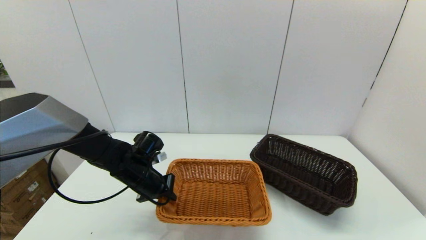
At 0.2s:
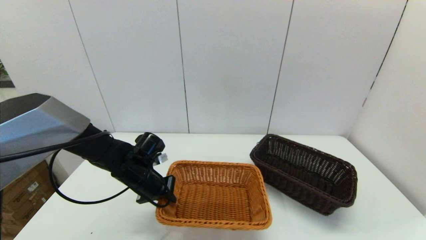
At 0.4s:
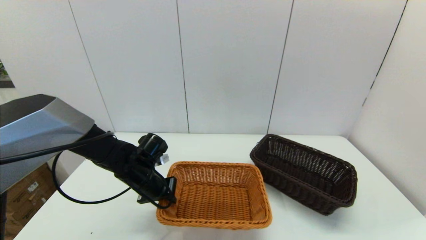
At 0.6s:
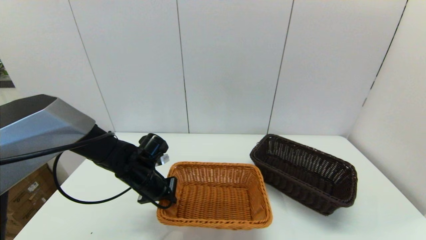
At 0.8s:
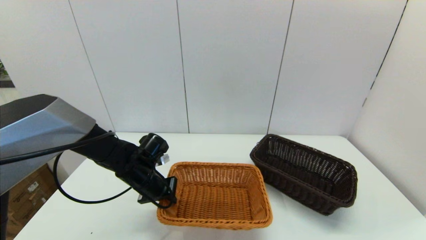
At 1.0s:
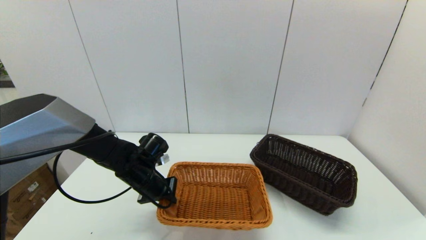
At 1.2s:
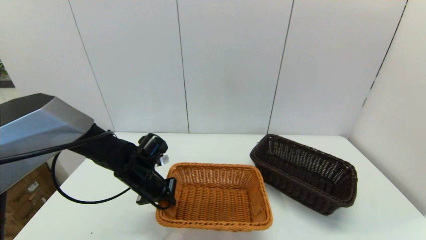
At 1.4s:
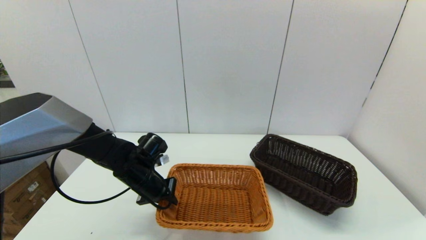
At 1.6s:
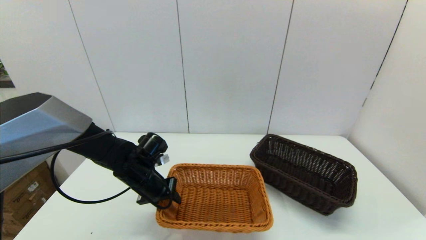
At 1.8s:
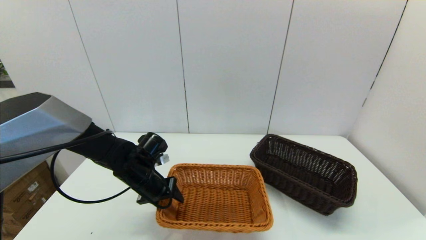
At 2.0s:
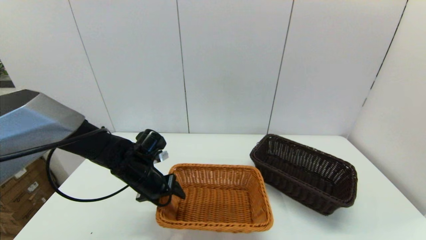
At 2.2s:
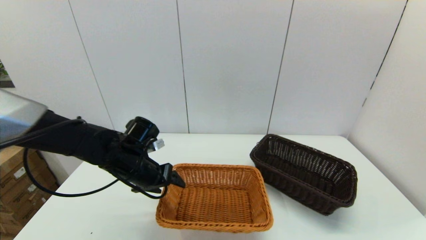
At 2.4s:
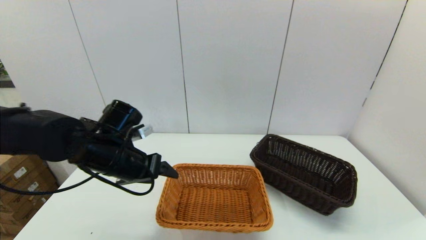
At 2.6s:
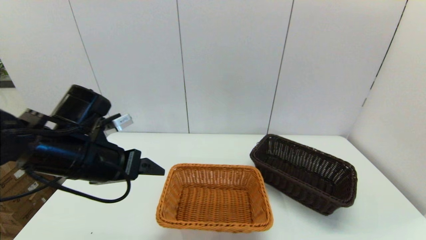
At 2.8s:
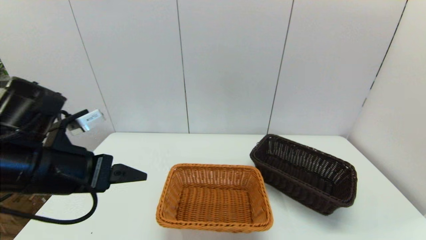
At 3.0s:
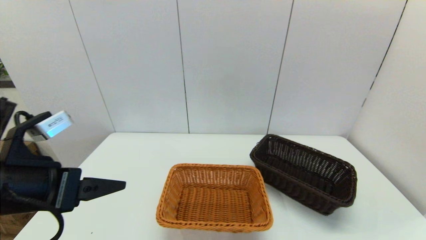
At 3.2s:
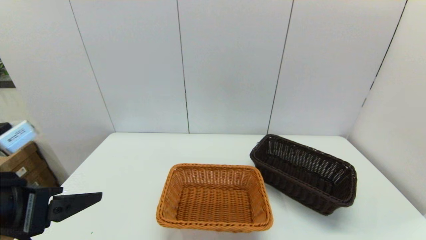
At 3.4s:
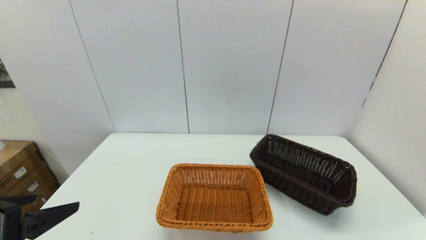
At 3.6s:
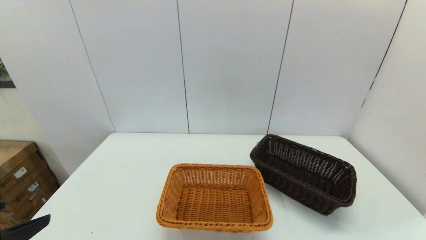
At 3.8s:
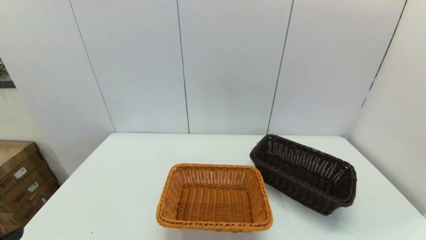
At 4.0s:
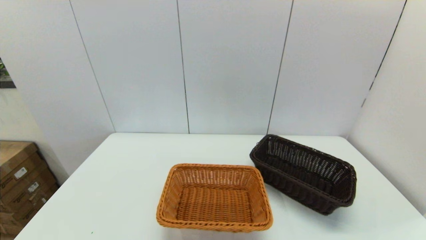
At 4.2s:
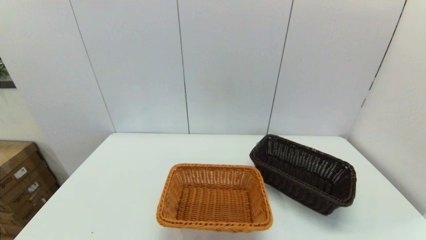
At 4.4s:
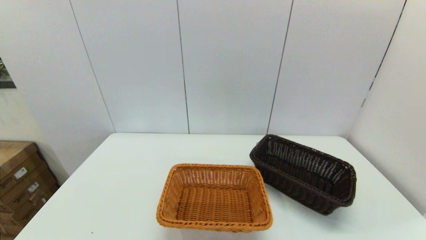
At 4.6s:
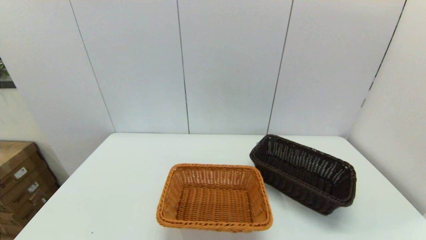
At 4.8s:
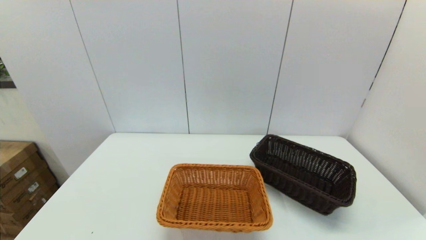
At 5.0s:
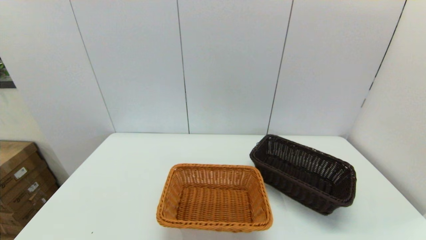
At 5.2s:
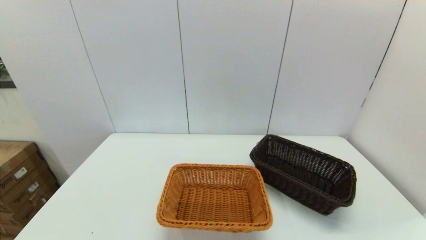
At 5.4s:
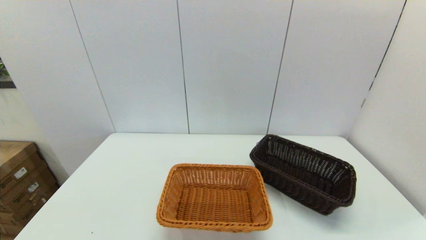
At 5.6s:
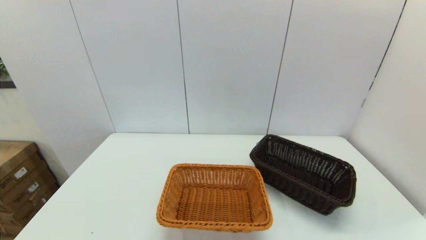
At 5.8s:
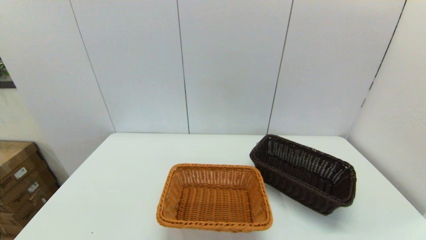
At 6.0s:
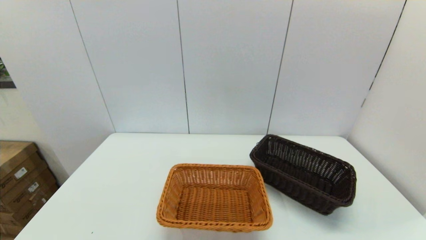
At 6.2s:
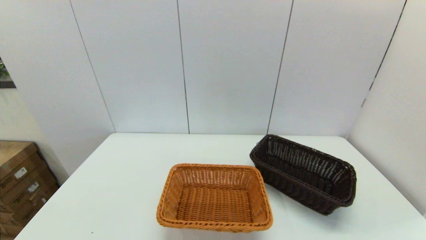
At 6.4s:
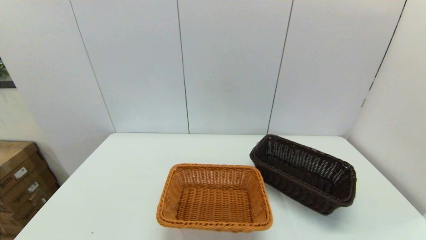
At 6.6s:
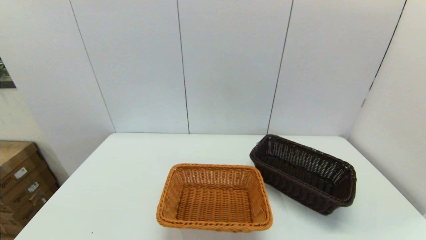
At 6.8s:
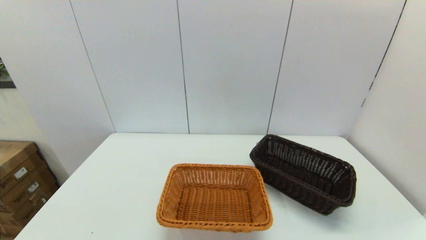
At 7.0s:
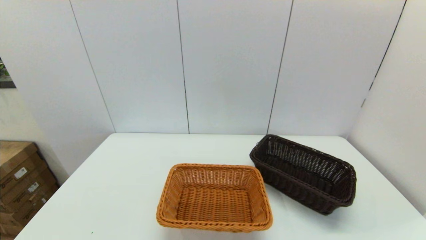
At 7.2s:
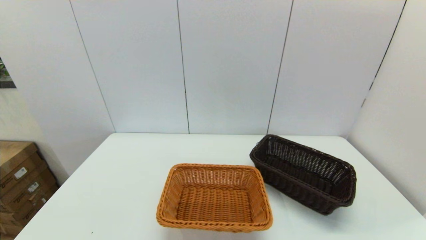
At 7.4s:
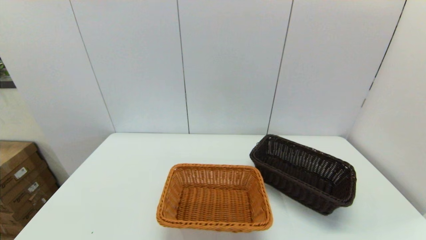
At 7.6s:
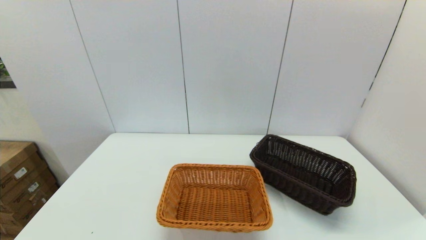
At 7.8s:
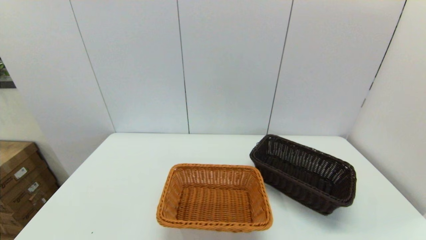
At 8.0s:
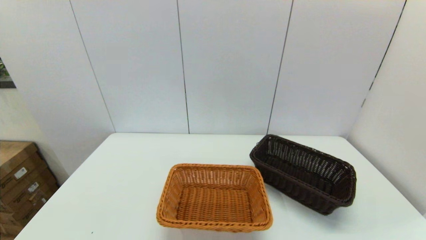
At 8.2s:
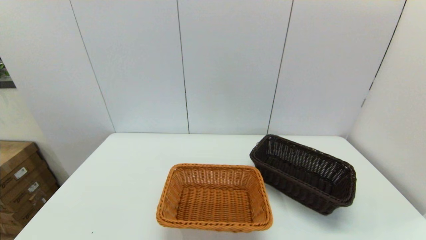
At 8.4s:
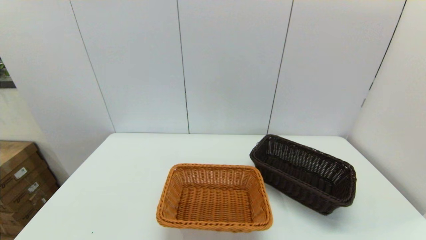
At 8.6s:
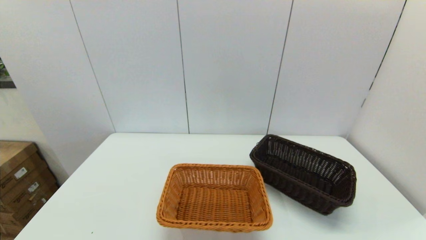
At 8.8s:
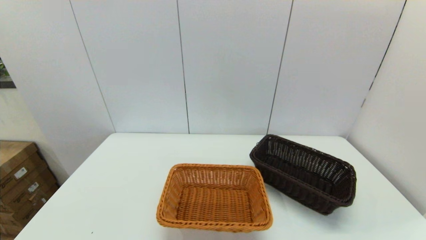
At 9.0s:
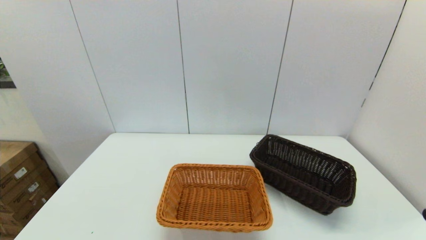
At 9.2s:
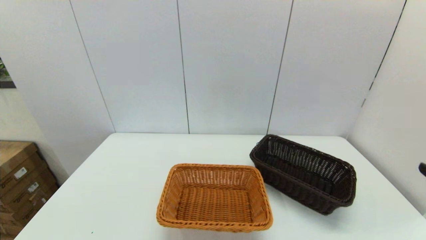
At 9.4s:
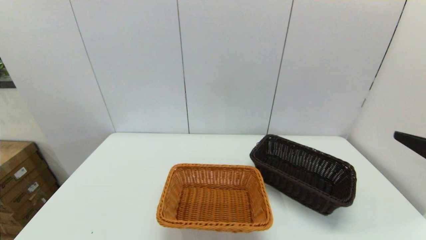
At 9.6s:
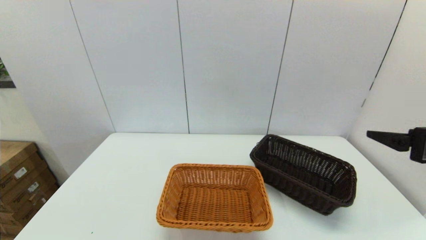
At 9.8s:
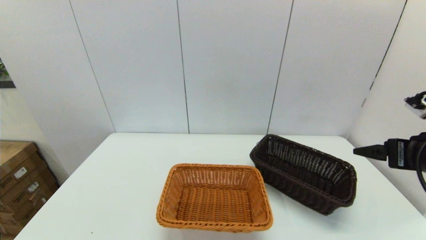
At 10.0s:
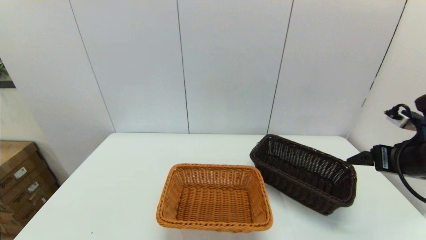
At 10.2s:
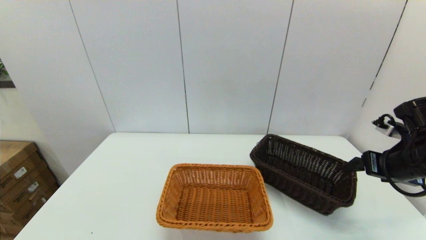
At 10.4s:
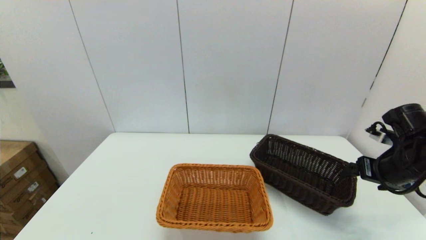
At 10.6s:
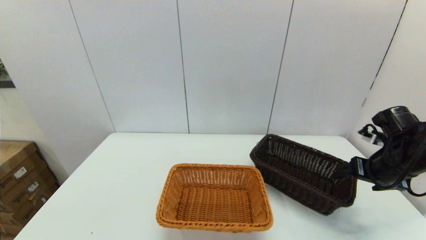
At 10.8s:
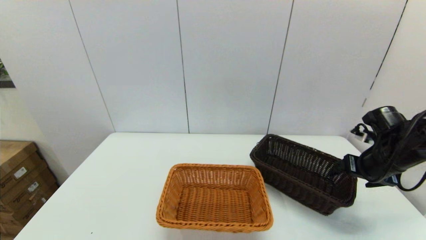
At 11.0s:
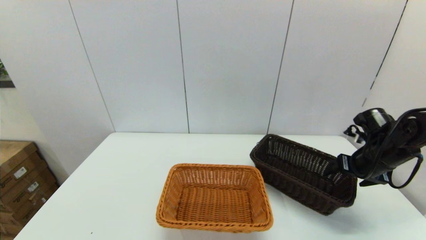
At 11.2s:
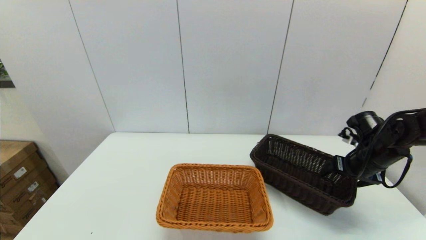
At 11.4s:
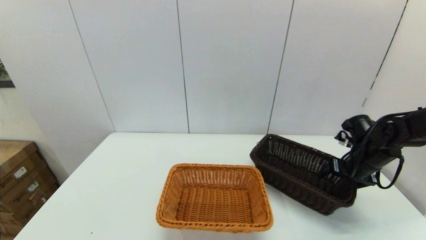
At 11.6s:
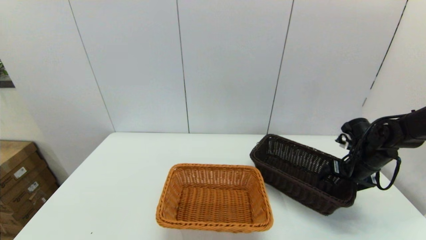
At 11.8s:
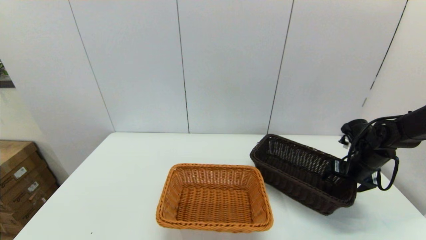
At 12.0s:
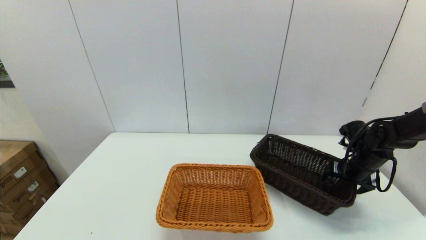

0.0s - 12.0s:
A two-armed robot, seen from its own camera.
Task of the whole recording: stack a basket on top of another basket.
Step, 0.0s - 2.6s: Place the light basket on the middle of the table with the left gripper.
0.0s - 1.6s: The left gripper opens.
1.6s - 3.0s: The left gripper travels upward, backward and to the left by about 25 cm, and opens up.
3.0s - 4.4s: The left gripper is displaced backward by some 20 cm.
6.0s - 7.6s: Both grippers stay put.
9.0s - 10.4s: The right gripper is displaced forward by about 25 cm.
10.4s - 12.0s: The right gripper moves forward and downward, about 15 cm.

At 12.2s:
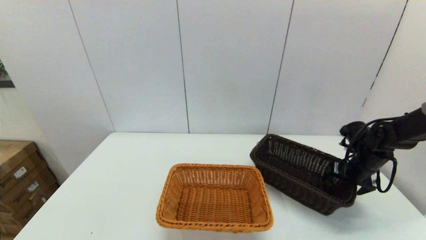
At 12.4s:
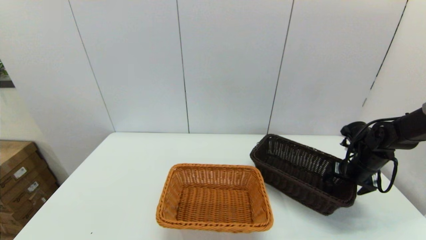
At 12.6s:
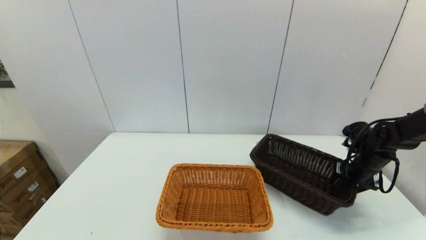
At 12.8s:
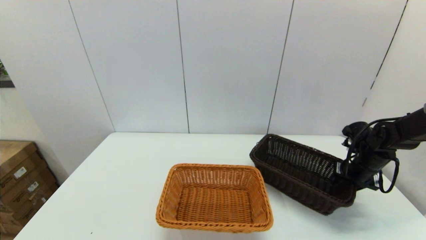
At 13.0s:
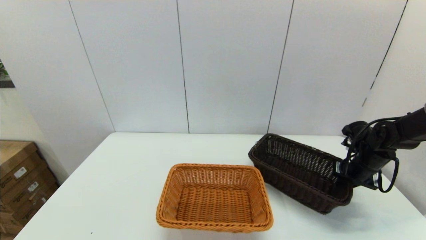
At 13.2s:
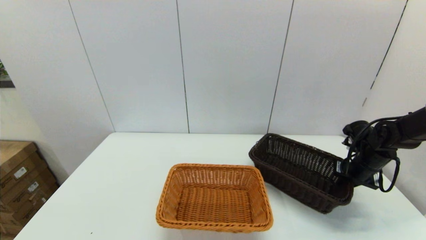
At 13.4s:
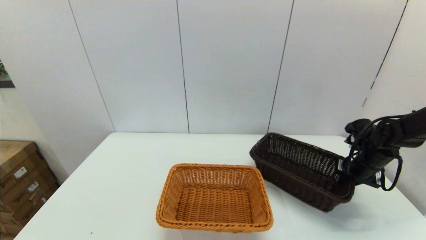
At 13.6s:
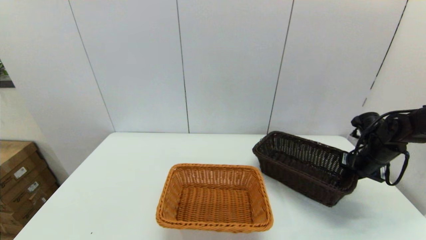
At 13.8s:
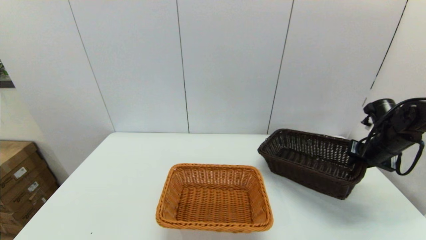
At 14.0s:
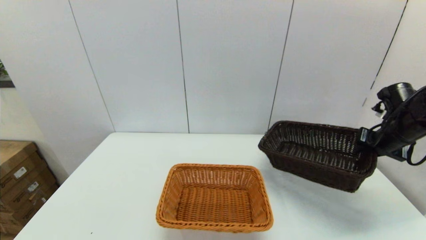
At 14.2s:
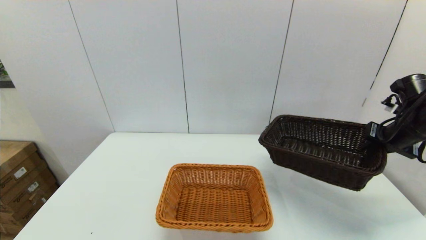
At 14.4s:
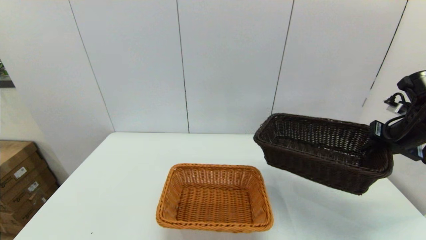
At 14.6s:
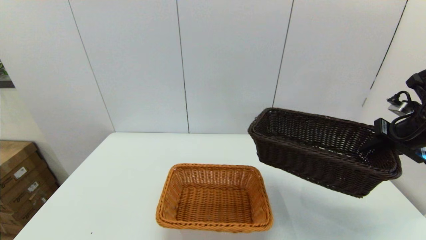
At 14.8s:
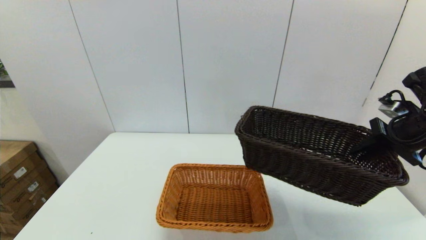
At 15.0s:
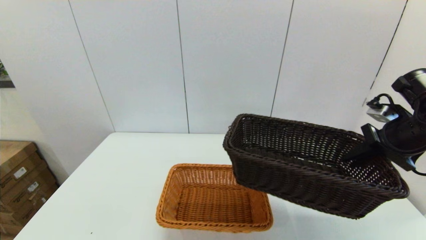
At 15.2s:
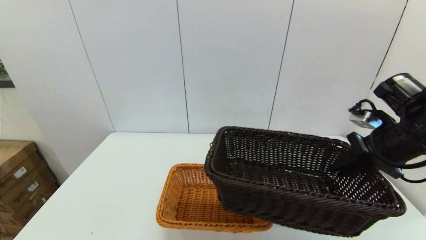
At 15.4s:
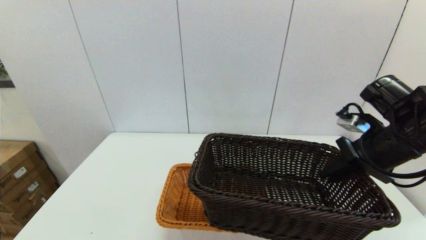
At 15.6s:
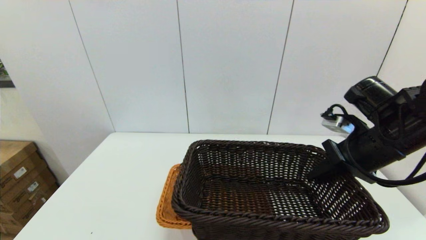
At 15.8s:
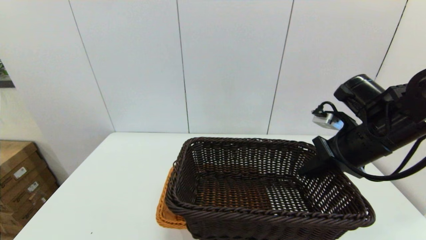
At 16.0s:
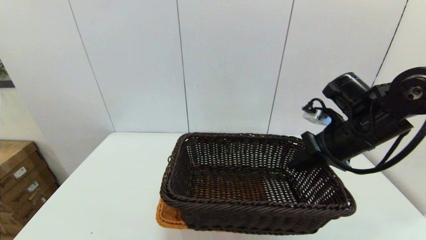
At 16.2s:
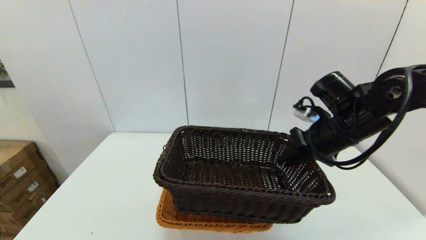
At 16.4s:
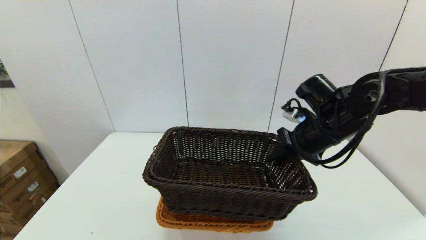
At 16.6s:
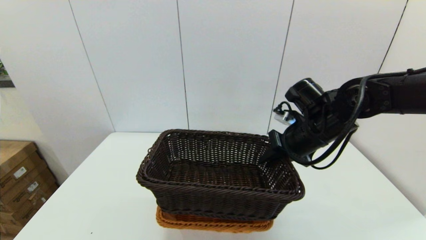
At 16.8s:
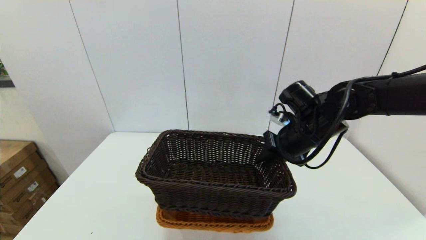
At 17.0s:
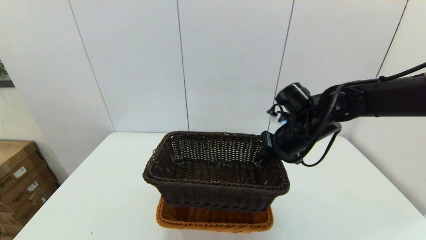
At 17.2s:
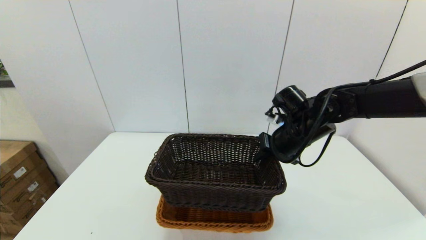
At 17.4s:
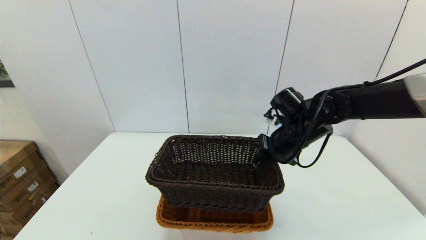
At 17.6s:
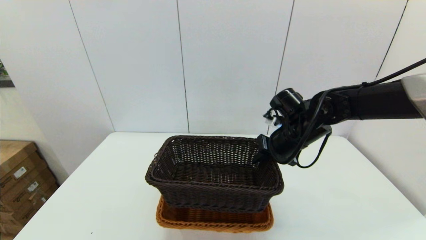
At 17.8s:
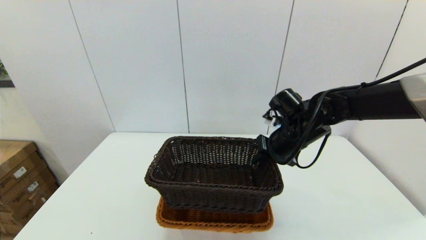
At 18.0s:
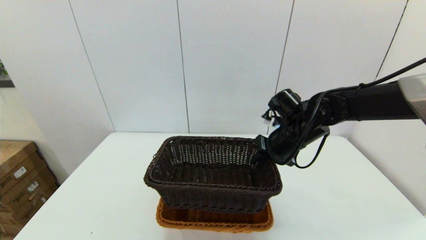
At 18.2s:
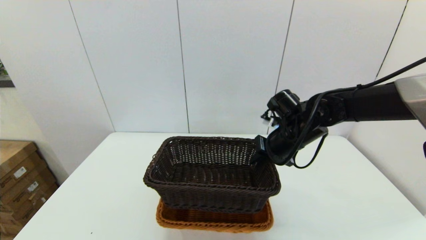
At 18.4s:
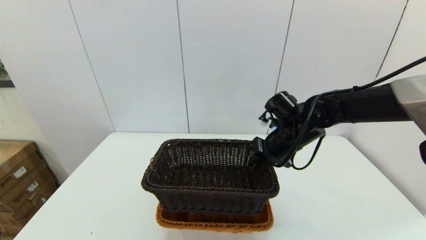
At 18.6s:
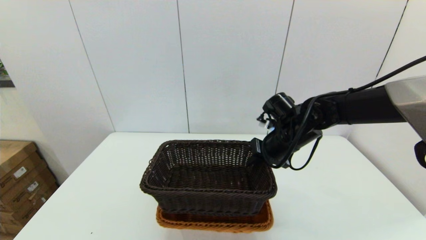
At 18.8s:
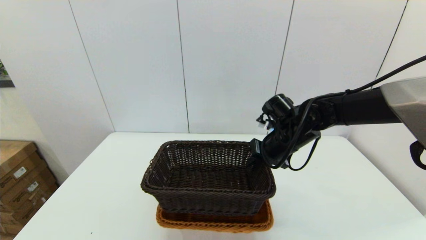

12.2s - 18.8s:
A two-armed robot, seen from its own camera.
Task of the whole recording: stack a basket on top of another basket.
12.2s - 13.8s: The right gripper is displaced upward by about 5 cm, and closes.
13.8s - 15.4s: The right gripper is displaced to the left, backward and upward by about 20 cm.
15.4s - 17.2s: The right gripper travels to the left, forward and downward by some 15 cm.
17.2s - 18.8s: The grippers stay close to where they were, moving slightly.
